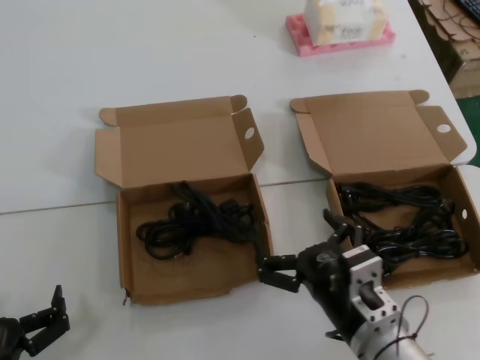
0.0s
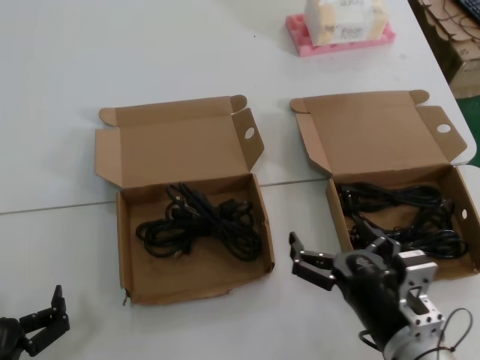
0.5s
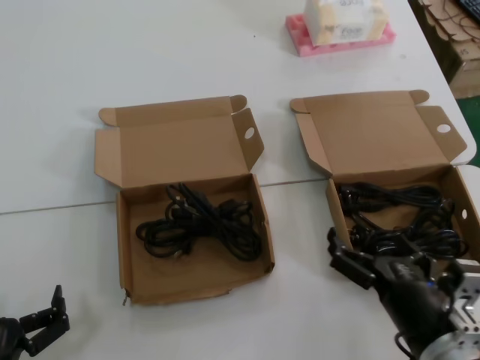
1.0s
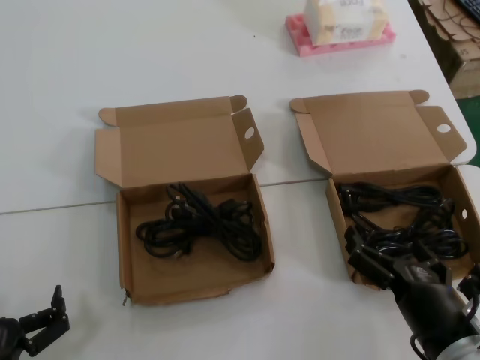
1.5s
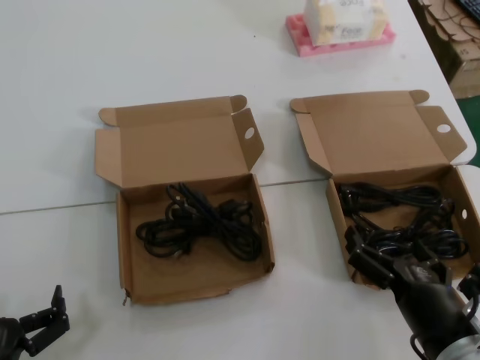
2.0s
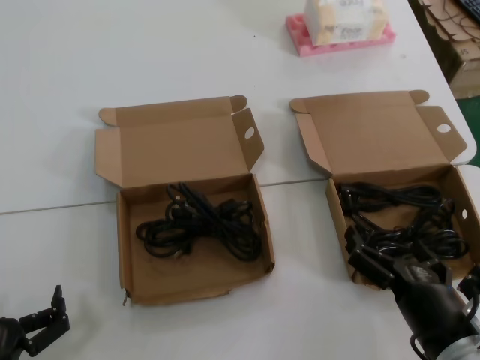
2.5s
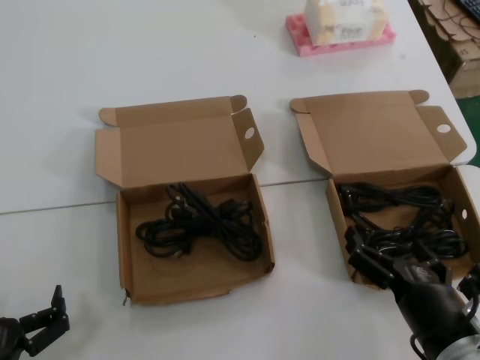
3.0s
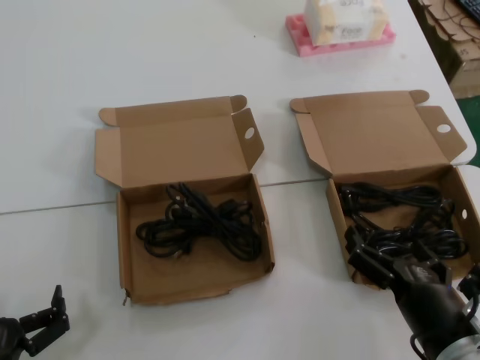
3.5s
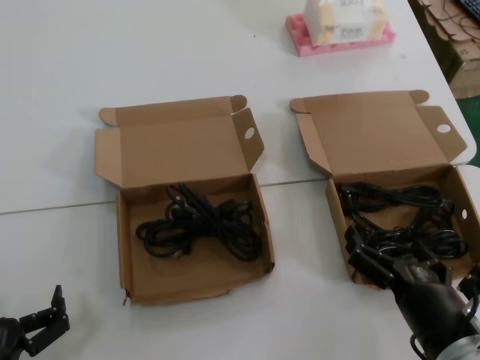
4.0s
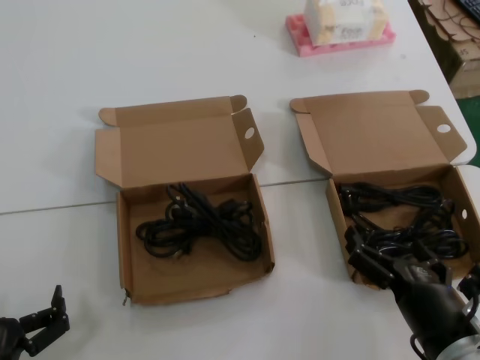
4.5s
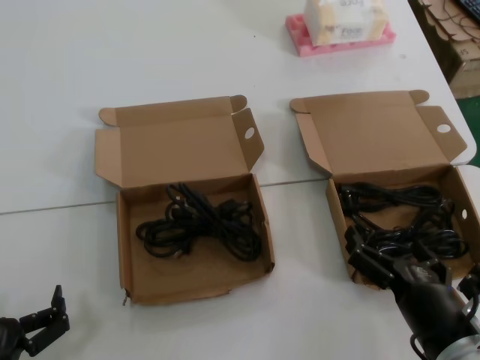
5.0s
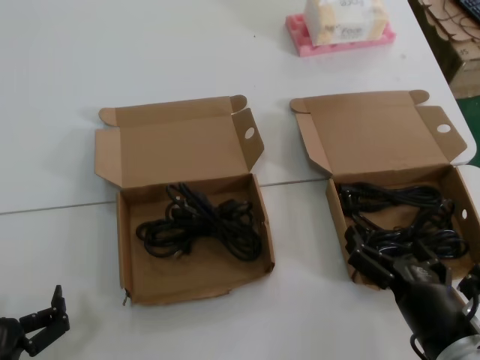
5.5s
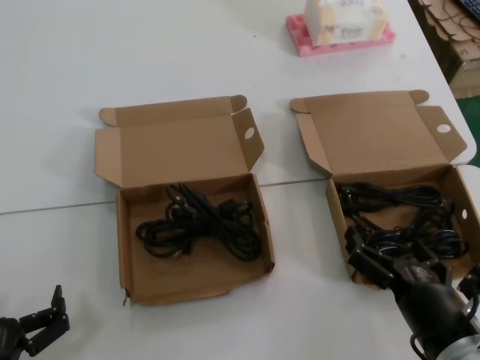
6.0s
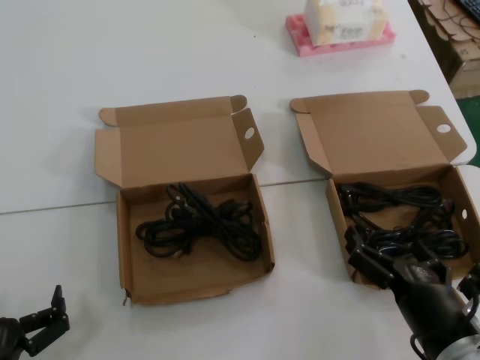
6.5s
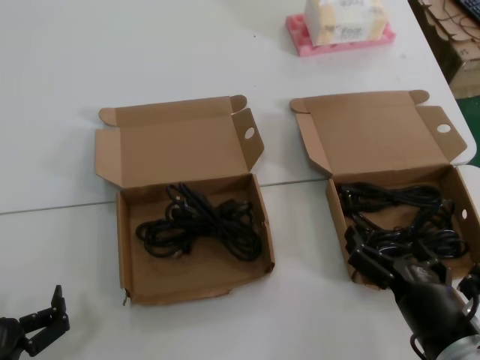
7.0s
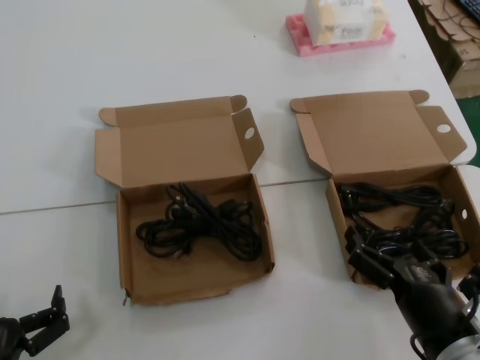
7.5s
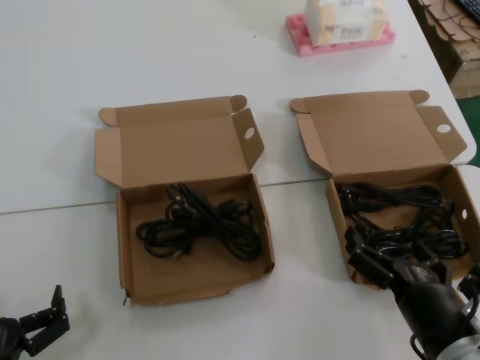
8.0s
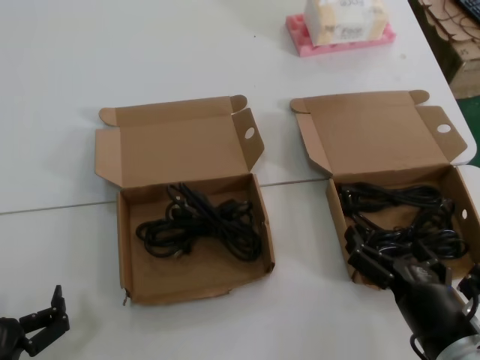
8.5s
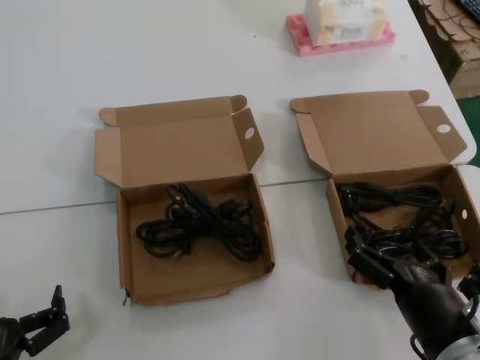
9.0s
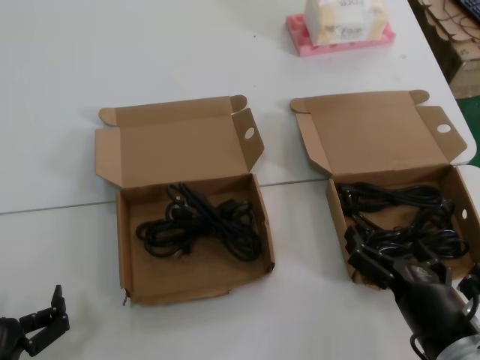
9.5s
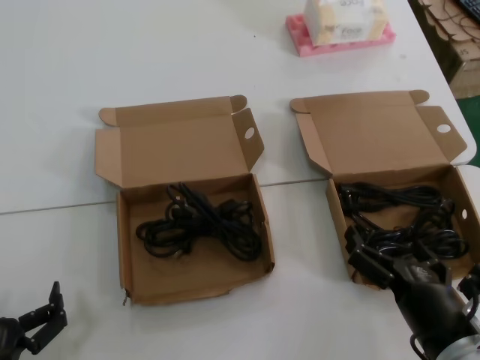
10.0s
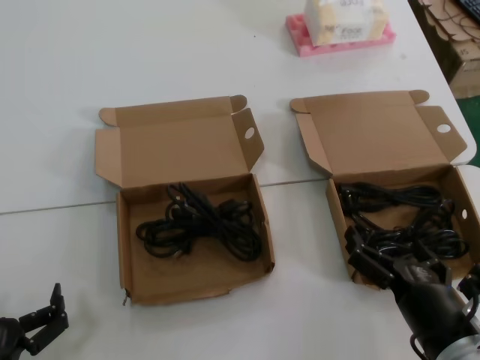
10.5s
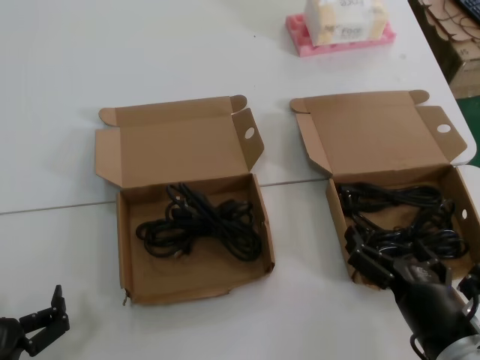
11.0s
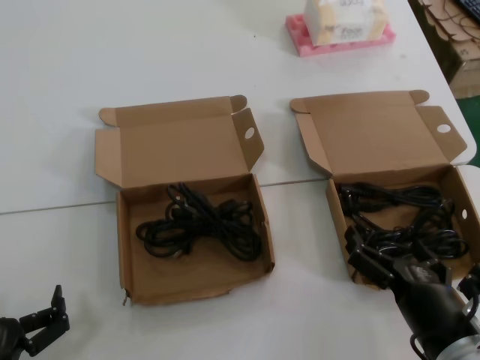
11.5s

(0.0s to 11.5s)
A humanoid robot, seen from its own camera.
Task of the whole recording: take the parts from the box containing them and put them into an empty box.
0.0s - 2.0s: The right hand moves to the right, about 10 cm.
2.0s - 11.5s: Both hands stay put.

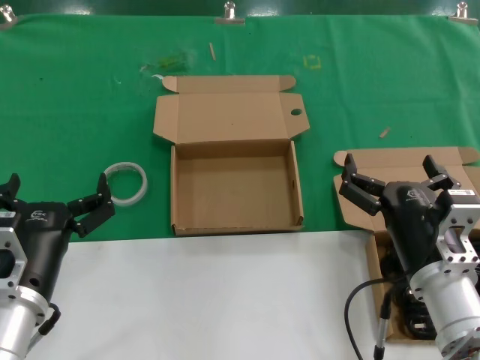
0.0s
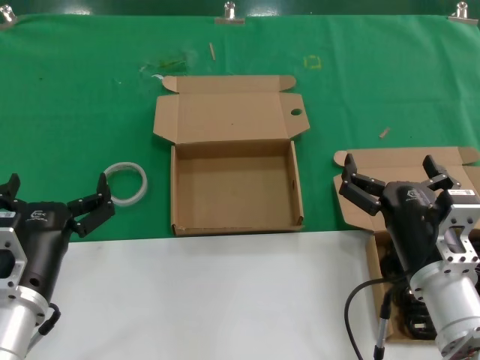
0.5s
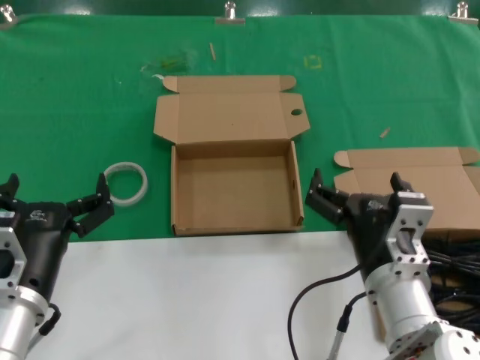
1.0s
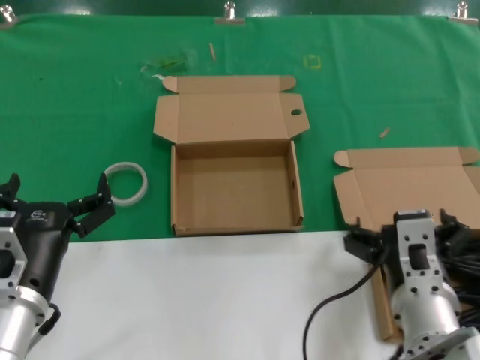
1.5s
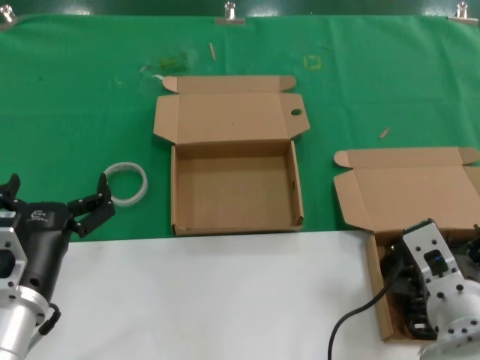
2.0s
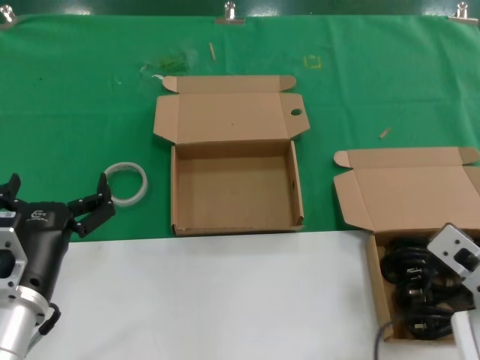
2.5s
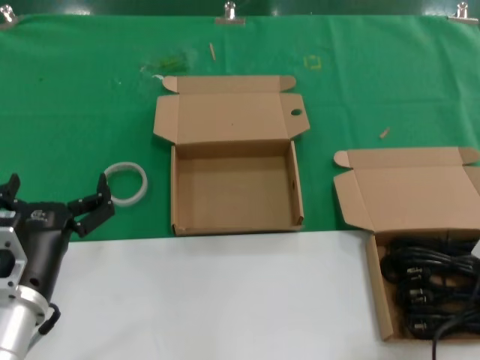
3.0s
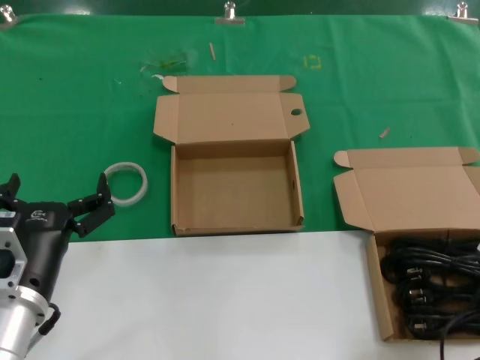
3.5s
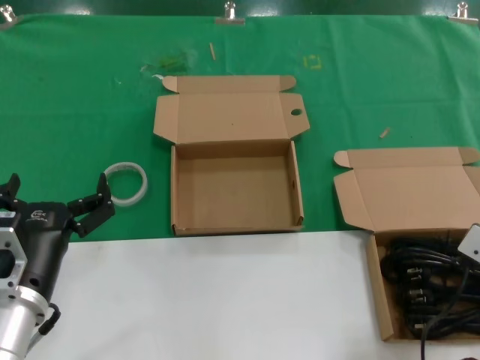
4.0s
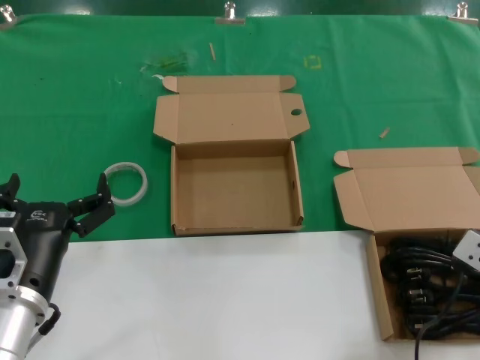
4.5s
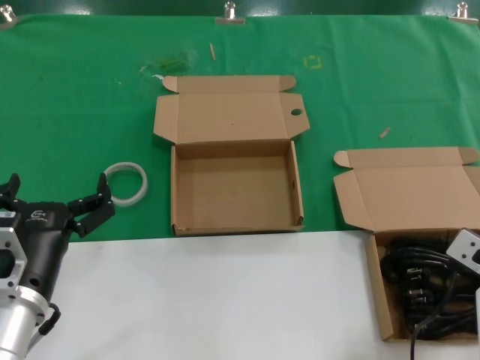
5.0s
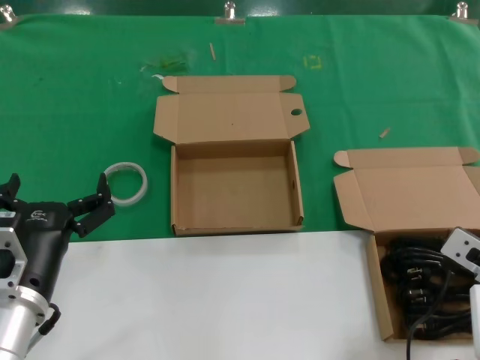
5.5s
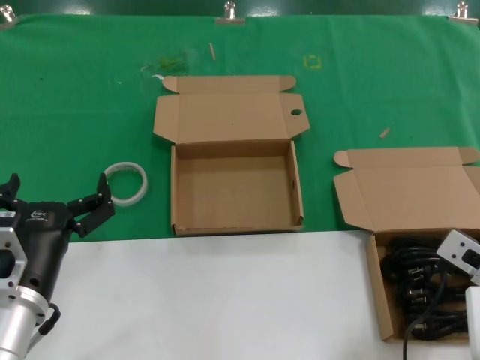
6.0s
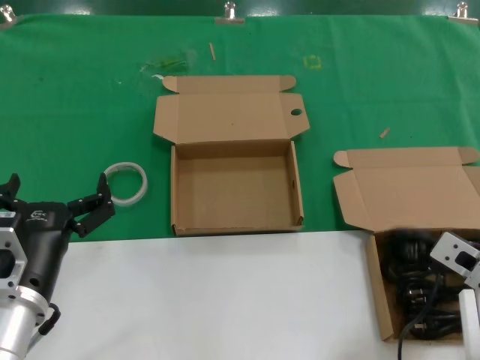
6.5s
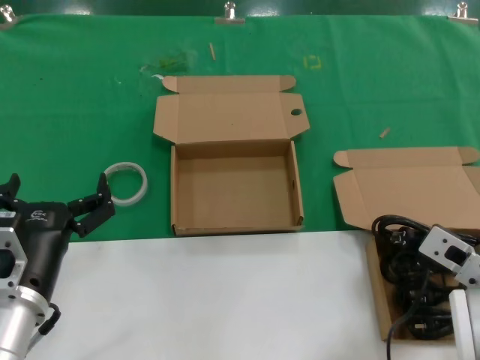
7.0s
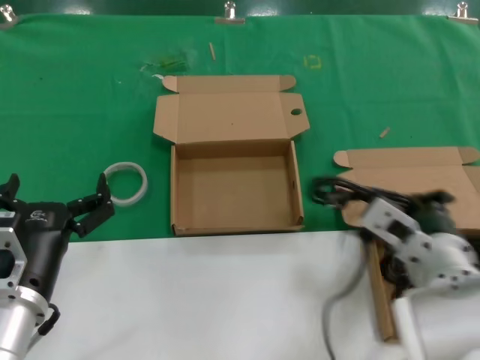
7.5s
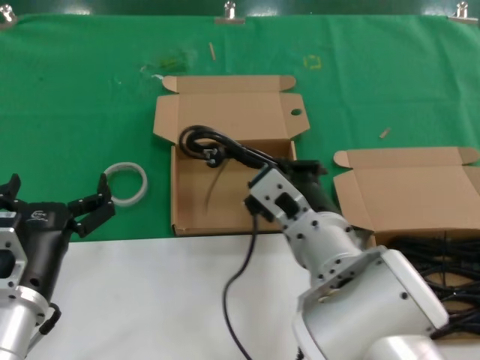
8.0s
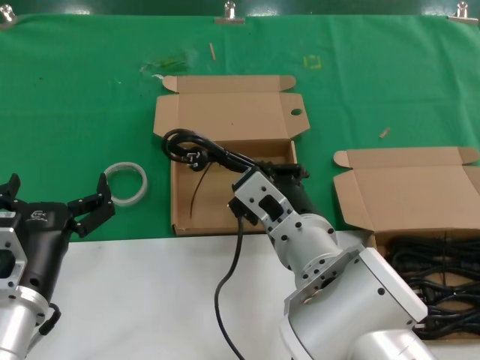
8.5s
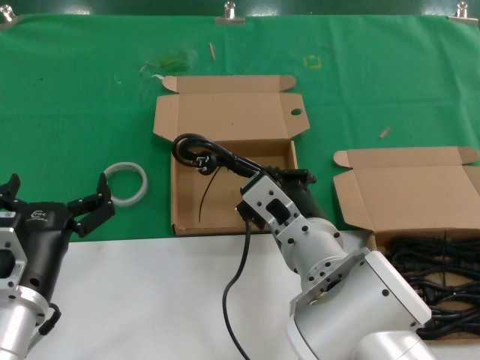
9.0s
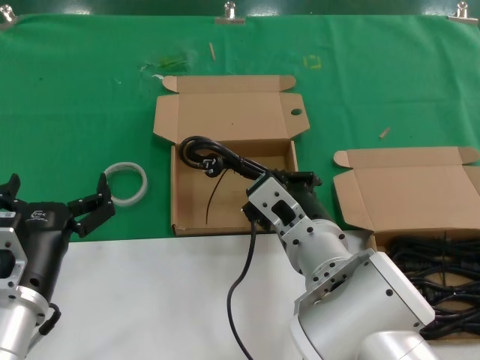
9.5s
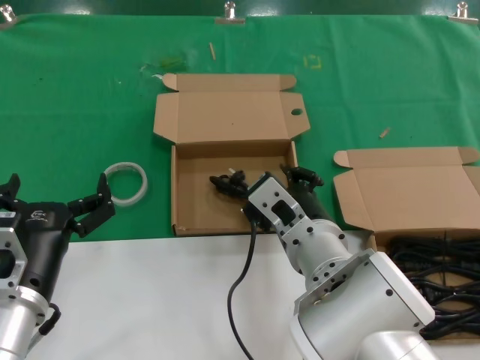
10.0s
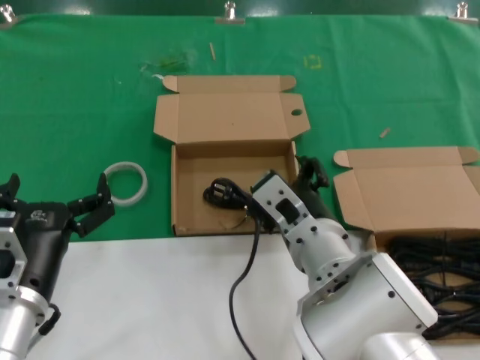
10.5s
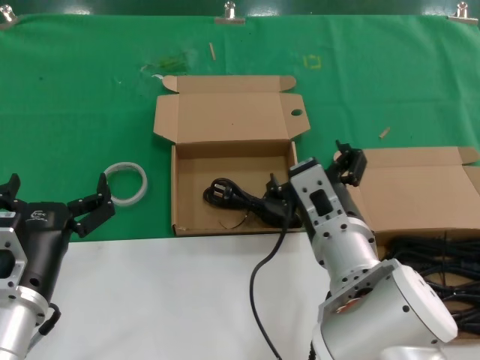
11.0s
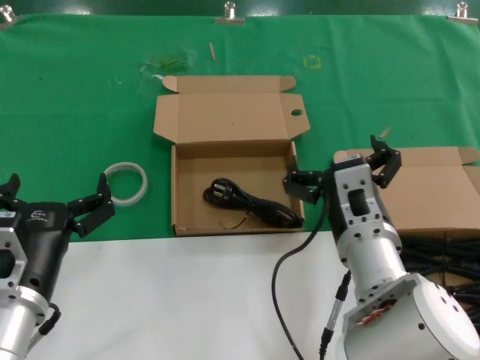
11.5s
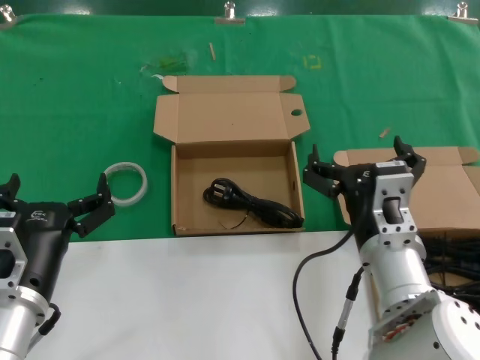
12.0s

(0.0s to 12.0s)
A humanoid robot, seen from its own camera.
Task of the whole recording: take the parts from the box containing them and put them into an empty box.
Step, 0.0s - 6.5s: Grasp the data cable.
Step, 7.0s - 9.5s: Place the data cable in the another box.
2.0s - 4.0s: The right hand travels to the right by about 10 cm.
4.0s - 6.0s: The hands make only small movements.
6.0s - 8.0s: The right hand is displaced to the left by roughly 20 cm.
8.0s - 10.0s: The hands stay close to where they were, moving slightly.
10.0s - 12.0s: The right hand heads to the right, covering some 10 cm.

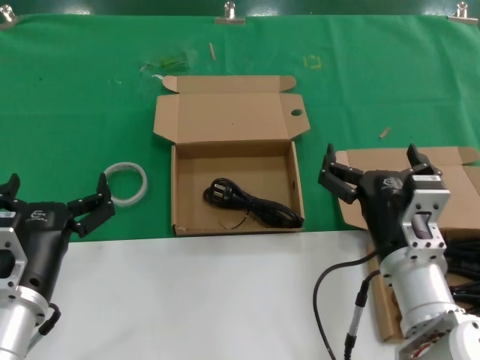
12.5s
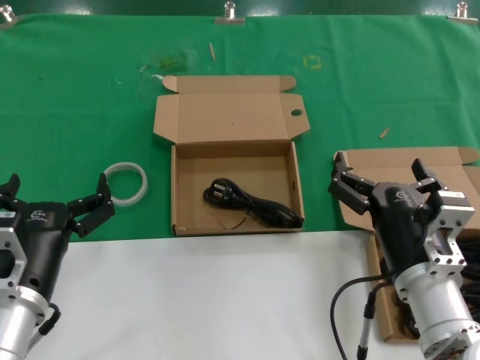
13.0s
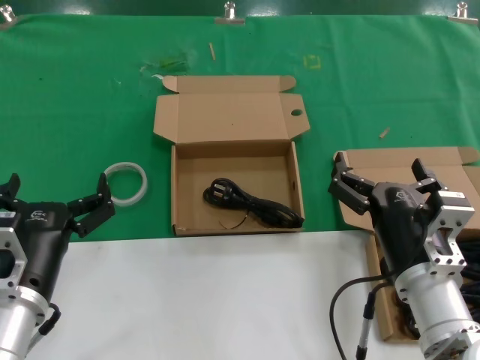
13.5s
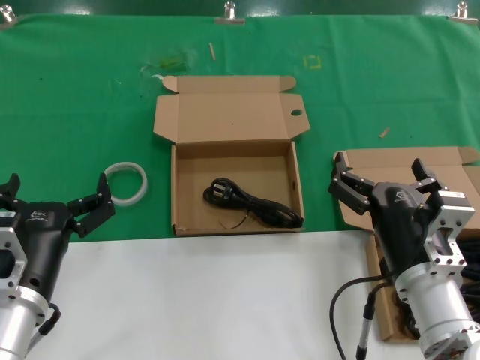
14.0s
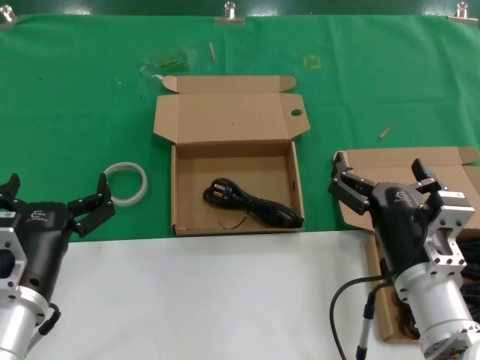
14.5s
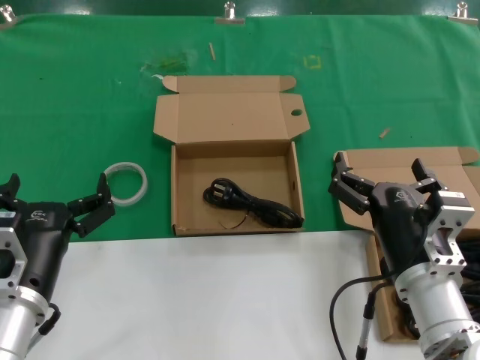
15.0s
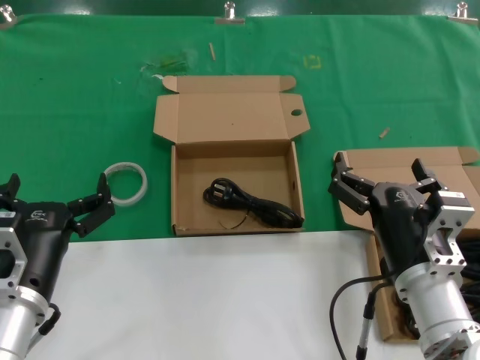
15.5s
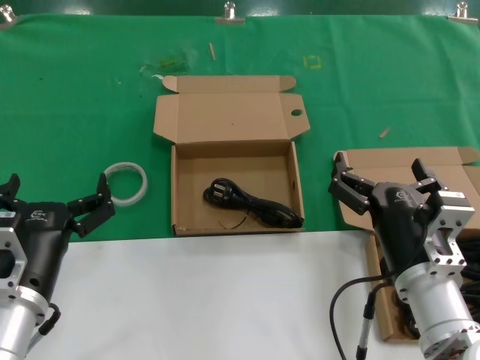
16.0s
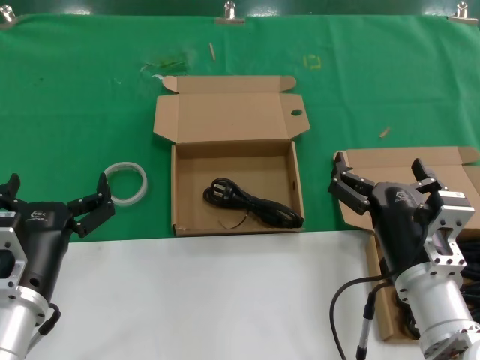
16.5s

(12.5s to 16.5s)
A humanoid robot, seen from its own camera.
Task of the whole recording: take the parts from the box containing them and put them into an empty box.
12.5s - 14.5s: The hands move only a little.
14.5s - 16.5s: Neither hand changes place.
